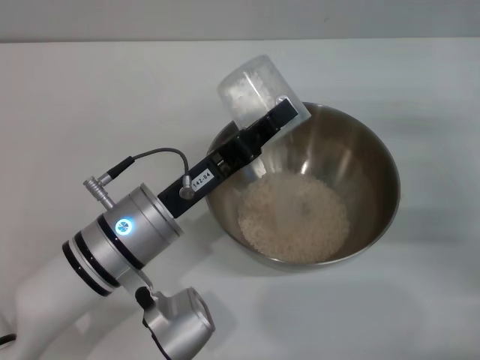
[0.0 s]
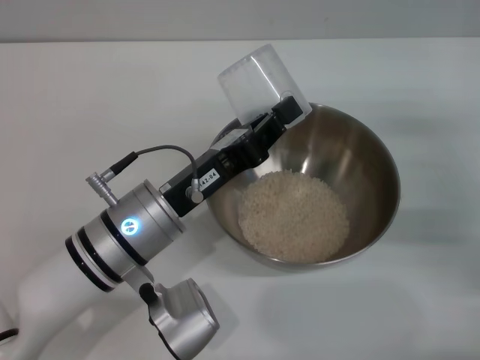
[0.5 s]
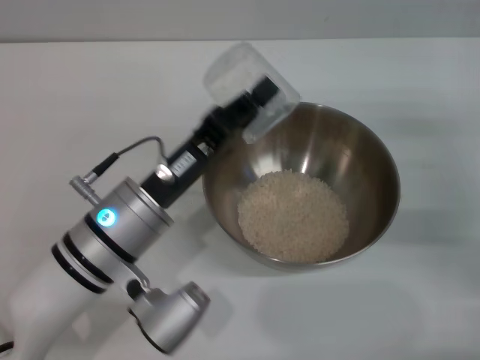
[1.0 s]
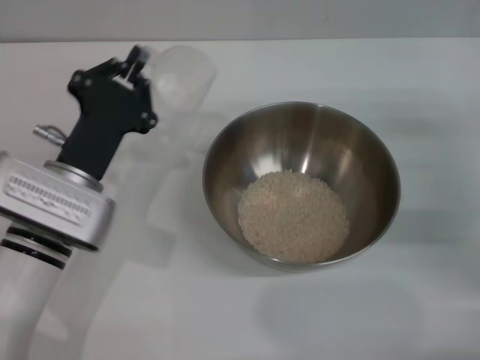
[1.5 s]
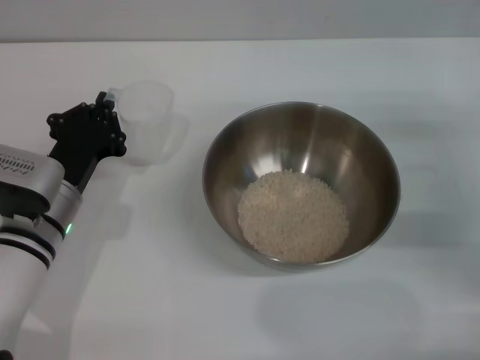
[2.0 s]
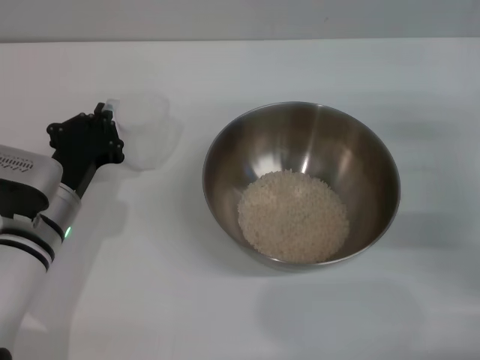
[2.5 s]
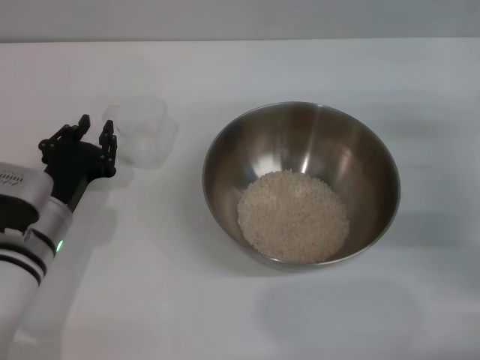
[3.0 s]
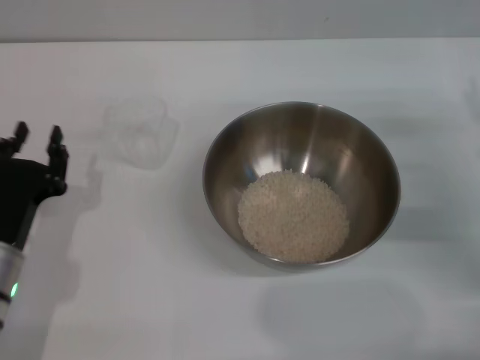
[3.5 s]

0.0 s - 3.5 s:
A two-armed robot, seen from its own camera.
Task of the whole recording: Place the bowl in the middle of the table with one hand and pour the rice from the grain cup into it with the other hand.
Step, 2.0 s - 3.0 s: Place the cup on the table with the left gripper.
0.0 s - 2.0 s: The left gripper moves to the left, about 10 cm.
2.0 s - 3.5 s: The left gripper shifts roughly 5 cm backward, and opens.
